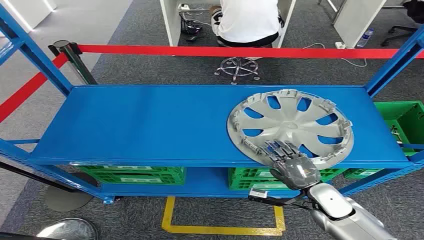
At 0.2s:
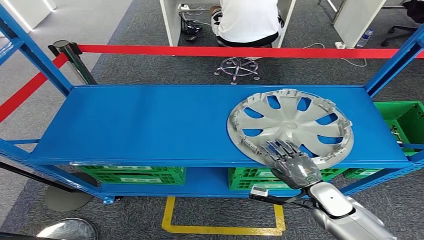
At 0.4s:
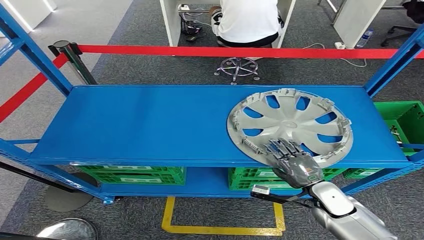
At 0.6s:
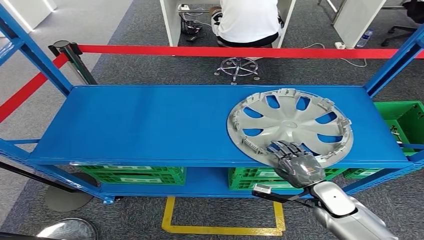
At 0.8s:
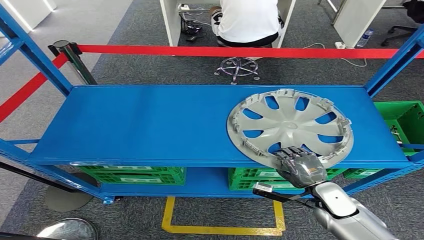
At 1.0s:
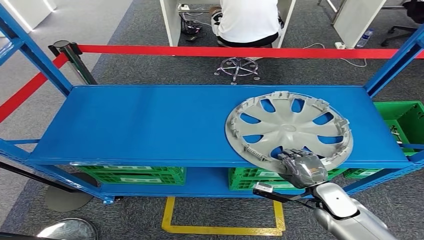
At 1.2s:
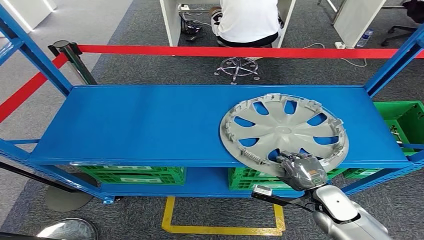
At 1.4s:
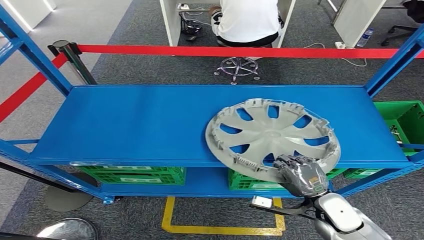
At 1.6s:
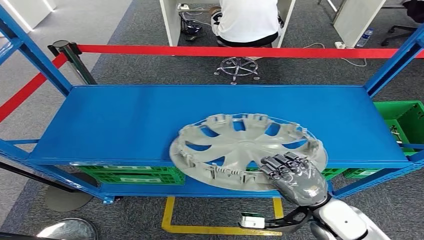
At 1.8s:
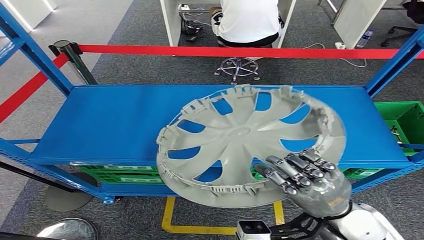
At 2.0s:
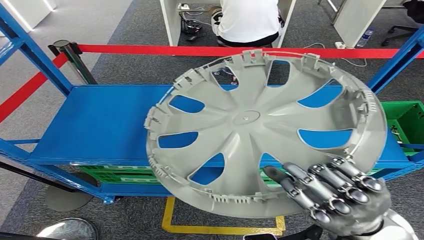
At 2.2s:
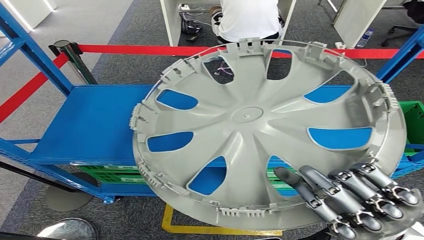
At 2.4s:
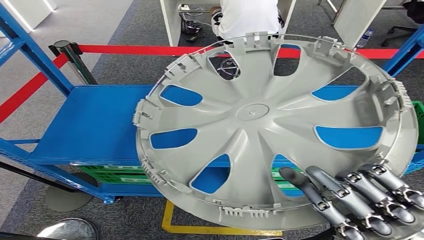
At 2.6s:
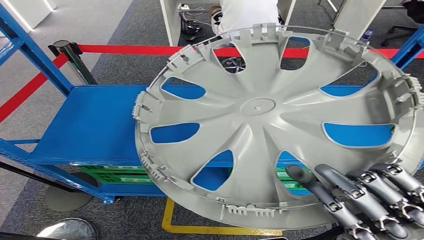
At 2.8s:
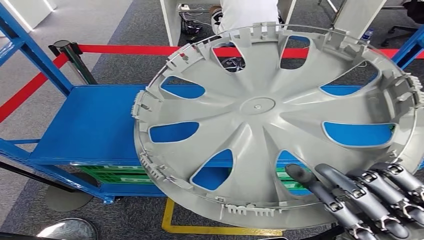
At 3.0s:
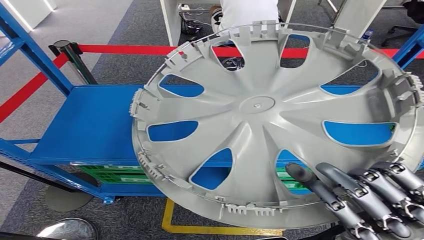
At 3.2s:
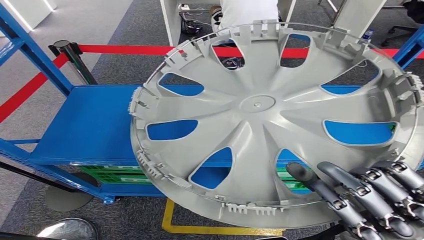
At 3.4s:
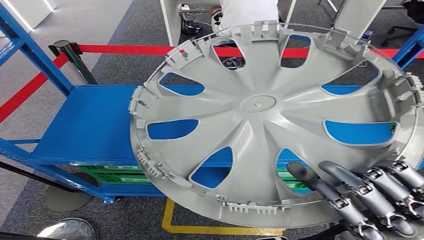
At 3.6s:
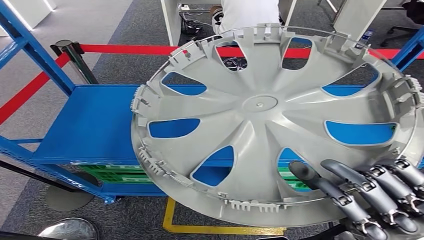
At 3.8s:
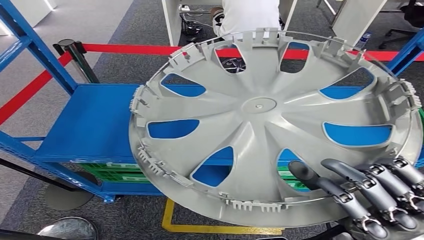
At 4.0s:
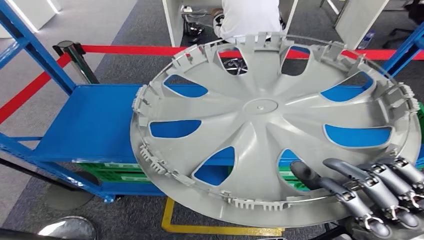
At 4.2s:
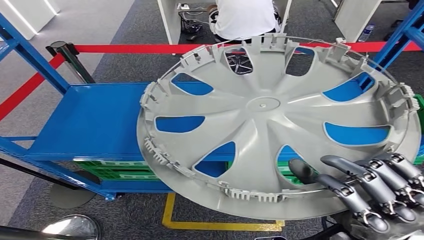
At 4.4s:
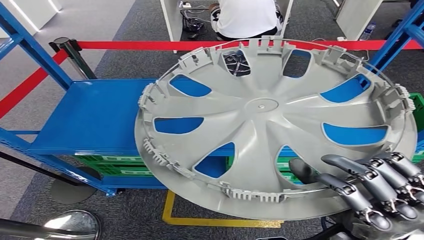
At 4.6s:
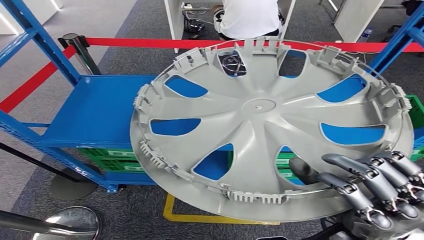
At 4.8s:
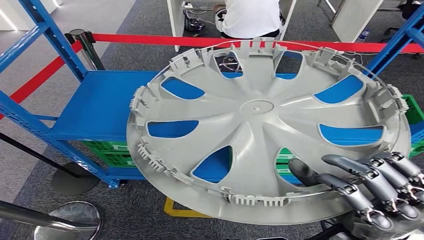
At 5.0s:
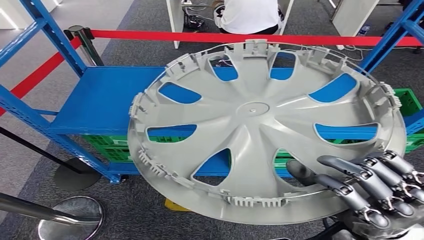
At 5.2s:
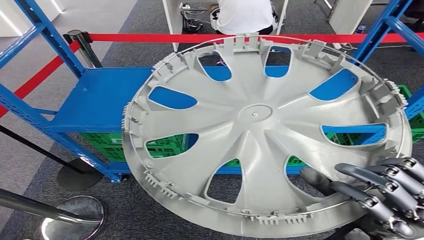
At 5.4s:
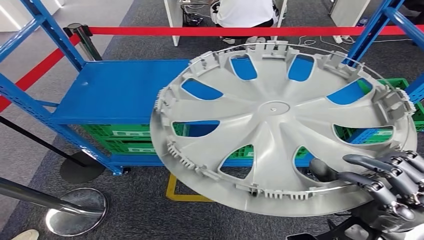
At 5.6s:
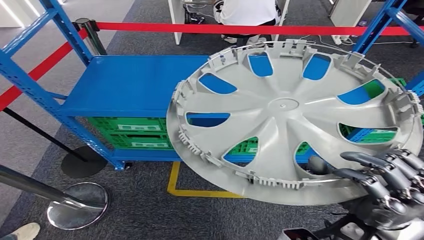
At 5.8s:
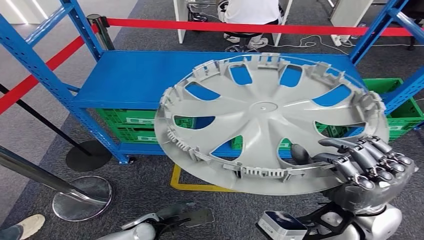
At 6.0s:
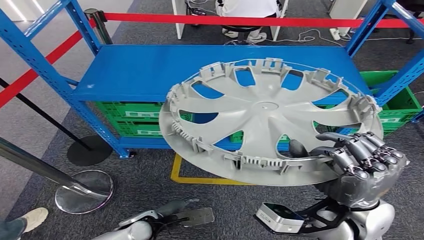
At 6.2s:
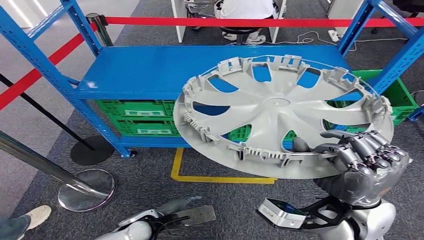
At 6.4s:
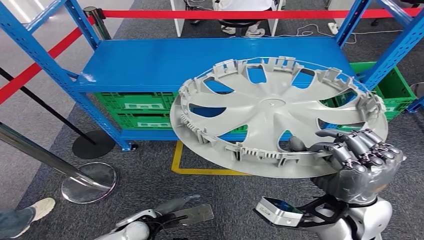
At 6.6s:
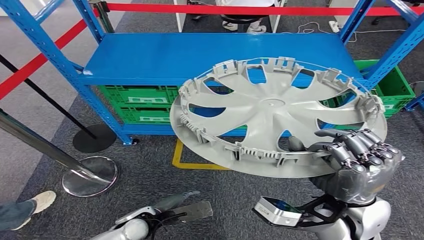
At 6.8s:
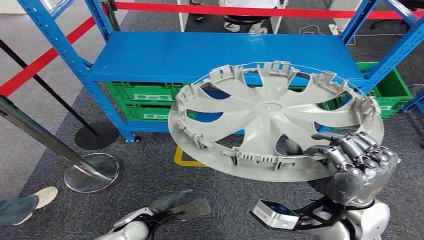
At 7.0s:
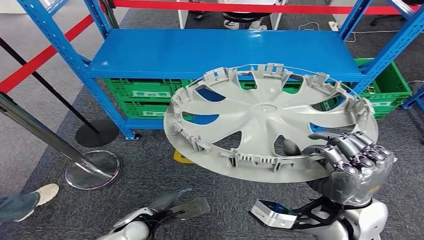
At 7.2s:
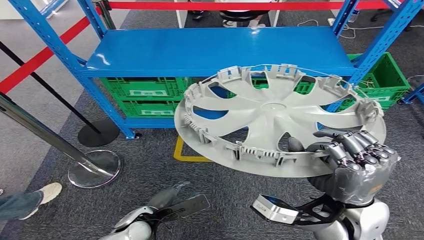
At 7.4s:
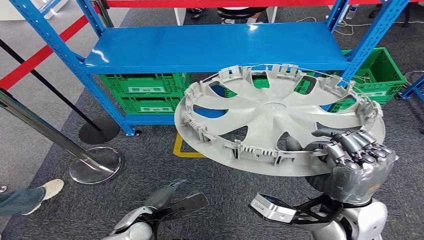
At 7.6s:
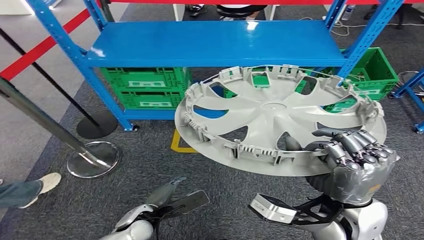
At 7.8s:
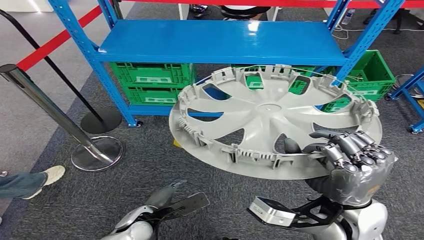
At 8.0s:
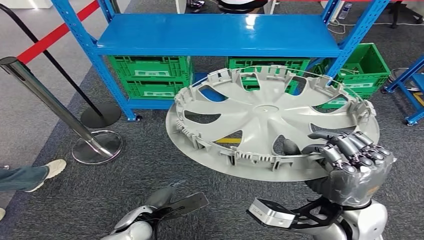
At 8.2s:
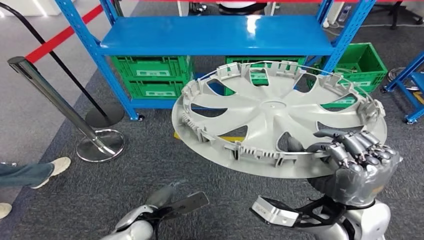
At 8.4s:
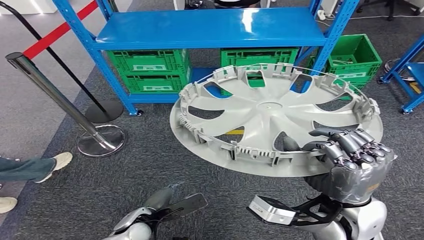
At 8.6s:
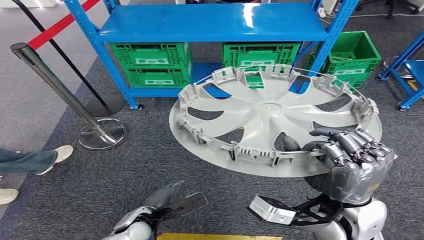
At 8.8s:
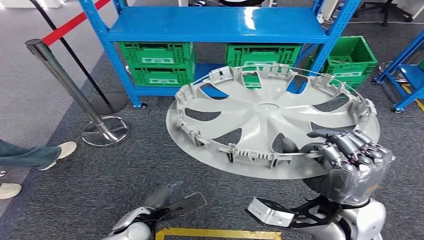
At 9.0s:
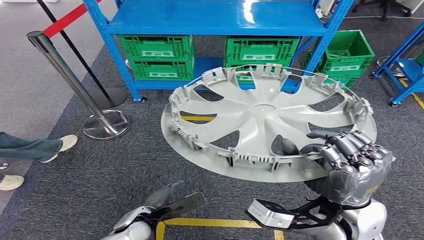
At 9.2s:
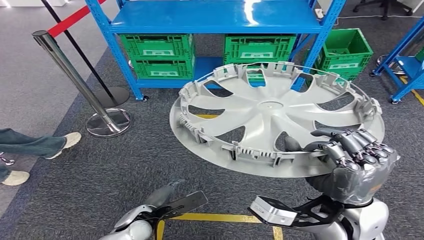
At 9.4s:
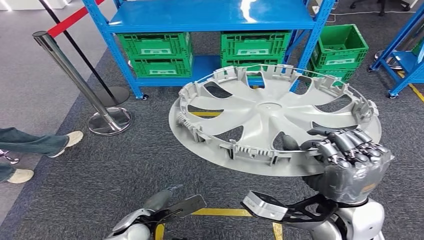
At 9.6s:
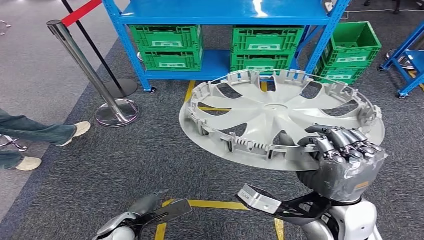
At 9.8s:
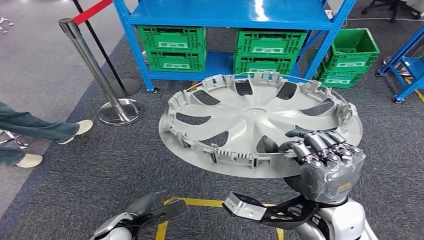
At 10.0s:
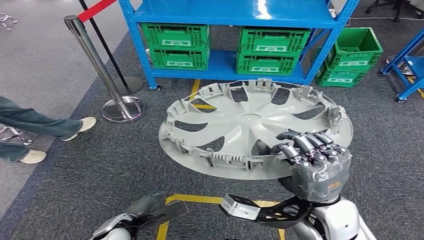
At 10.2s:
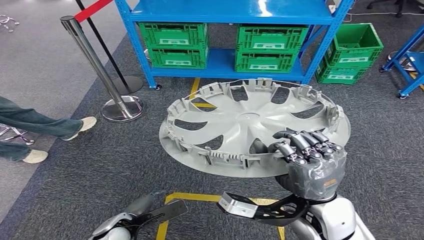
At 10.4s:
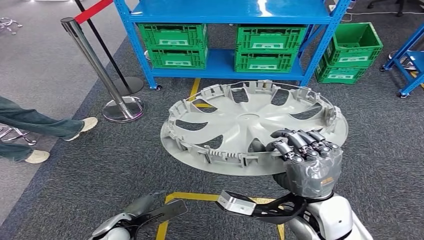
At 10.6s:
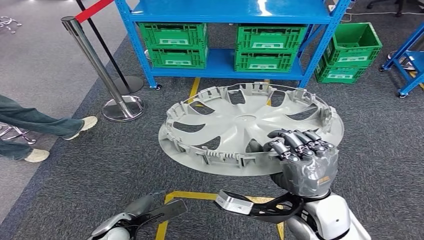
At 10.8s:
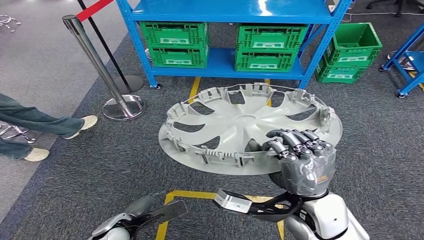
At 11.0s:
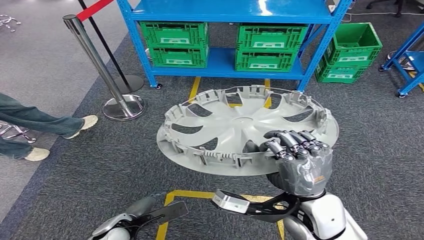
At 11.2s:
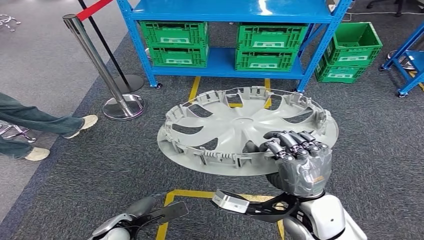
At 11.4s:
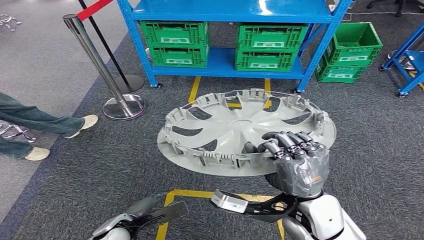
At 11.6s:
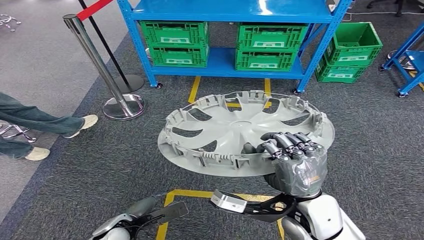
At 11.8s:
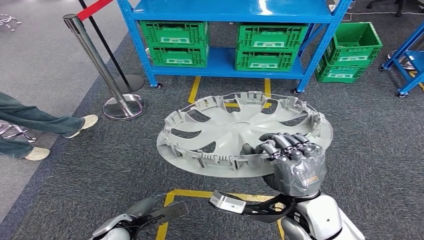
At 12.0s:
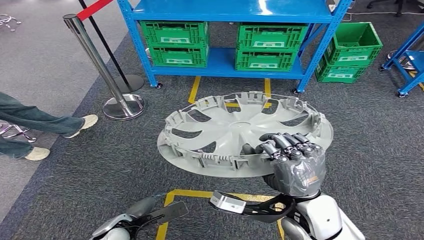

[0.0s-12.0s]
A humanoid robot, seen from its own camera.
Step, 0.0s to 4.0s: Pick up the small component from the shelf.

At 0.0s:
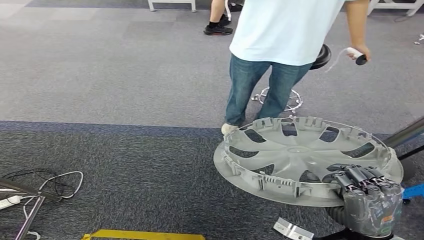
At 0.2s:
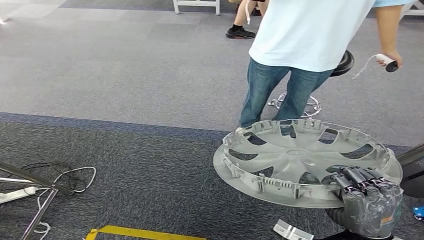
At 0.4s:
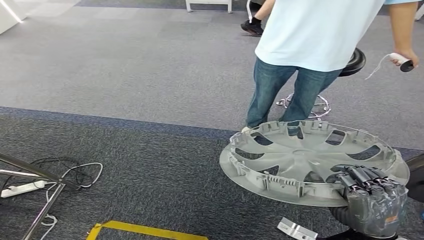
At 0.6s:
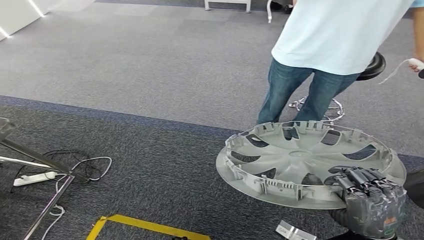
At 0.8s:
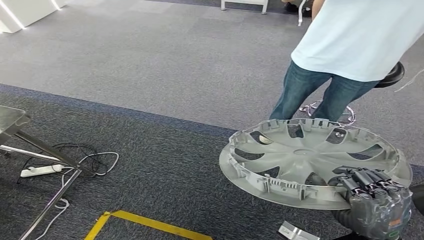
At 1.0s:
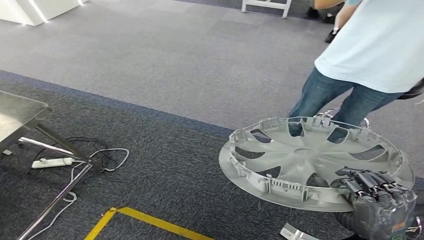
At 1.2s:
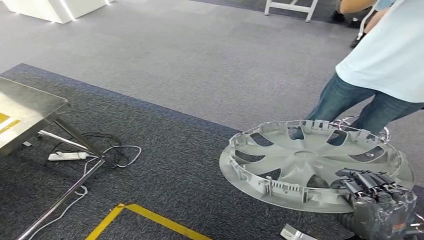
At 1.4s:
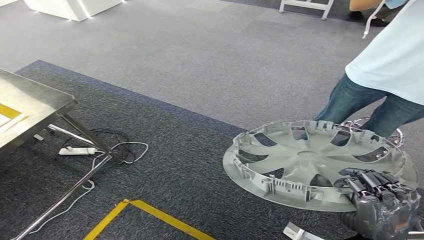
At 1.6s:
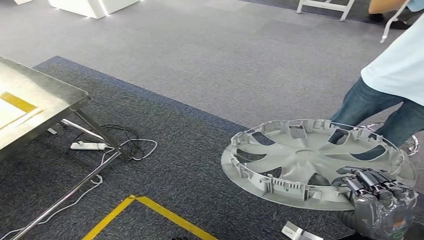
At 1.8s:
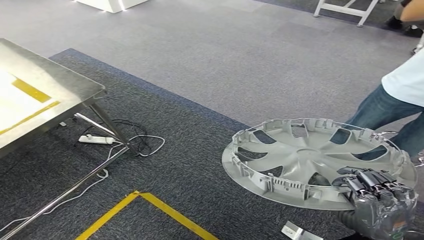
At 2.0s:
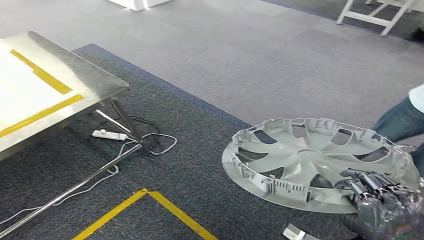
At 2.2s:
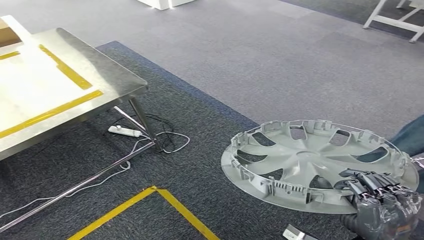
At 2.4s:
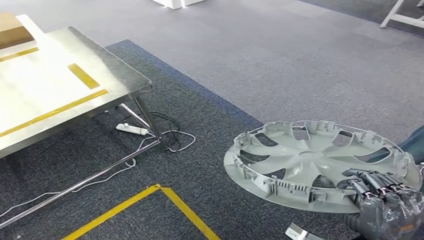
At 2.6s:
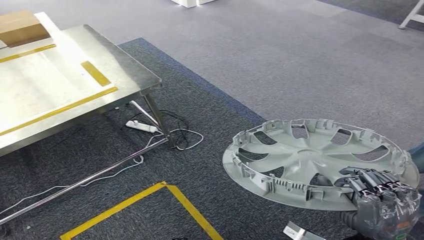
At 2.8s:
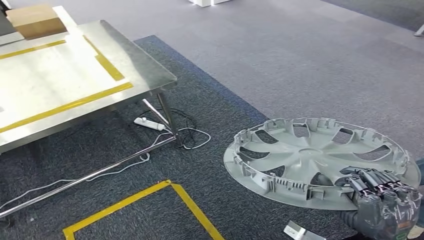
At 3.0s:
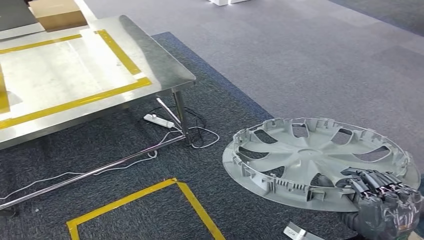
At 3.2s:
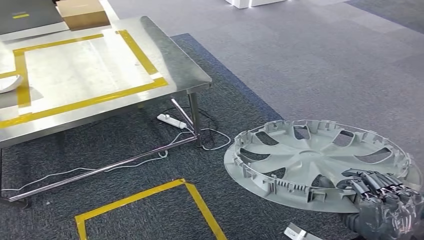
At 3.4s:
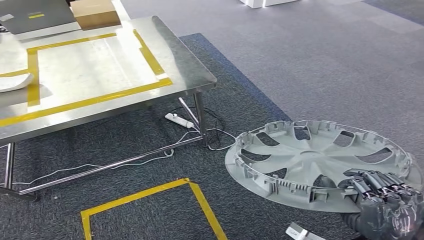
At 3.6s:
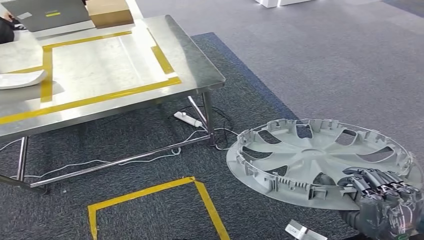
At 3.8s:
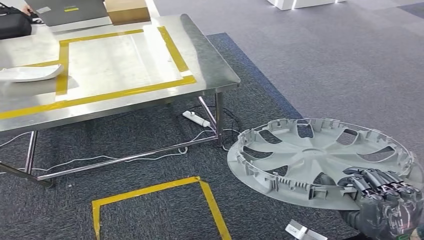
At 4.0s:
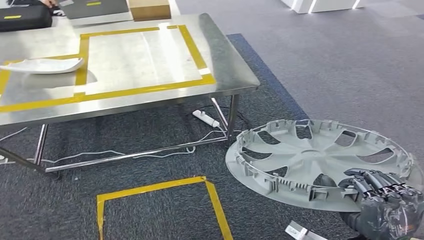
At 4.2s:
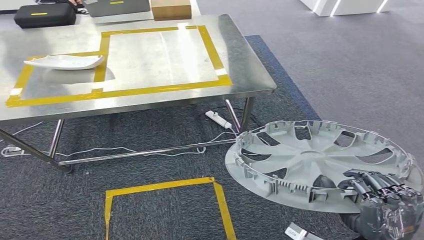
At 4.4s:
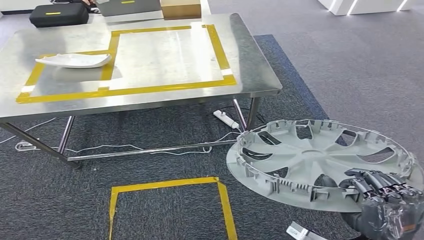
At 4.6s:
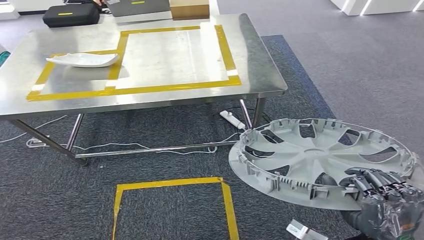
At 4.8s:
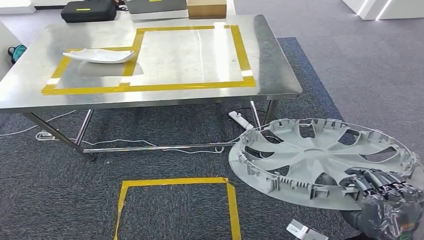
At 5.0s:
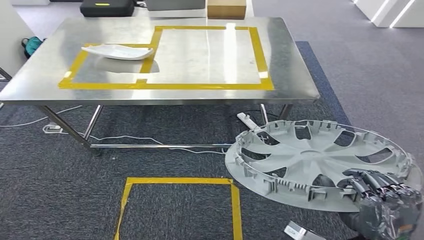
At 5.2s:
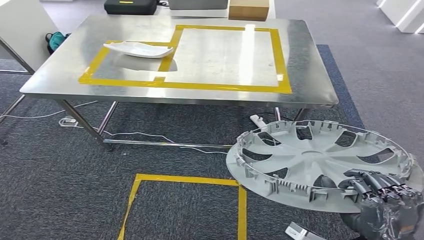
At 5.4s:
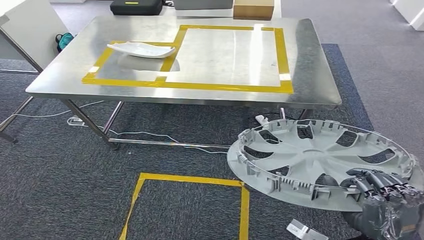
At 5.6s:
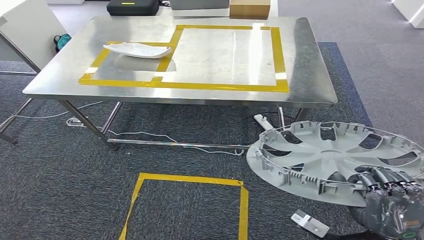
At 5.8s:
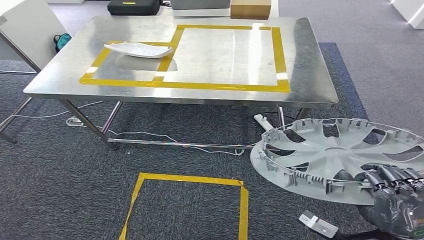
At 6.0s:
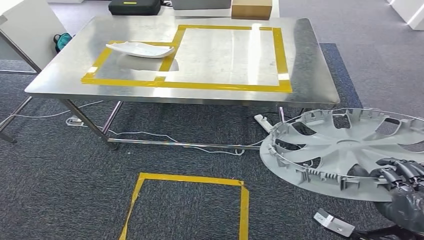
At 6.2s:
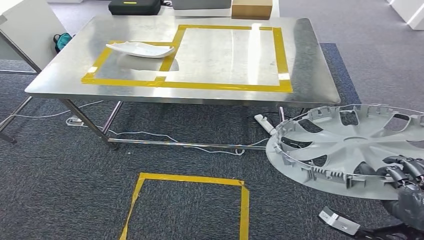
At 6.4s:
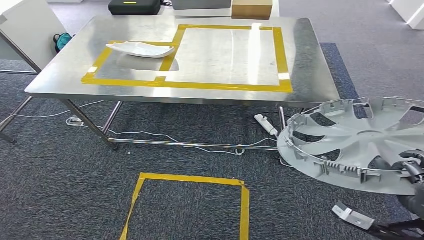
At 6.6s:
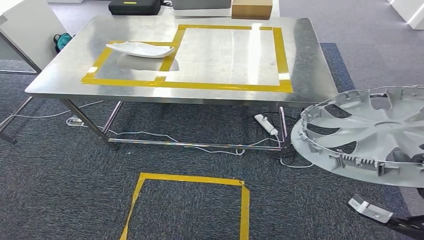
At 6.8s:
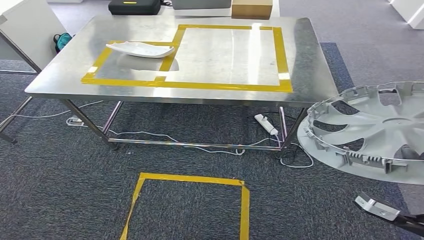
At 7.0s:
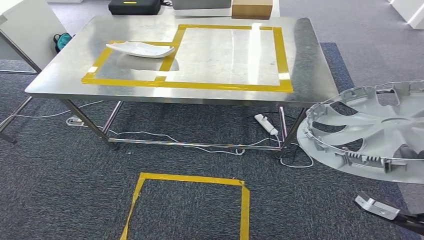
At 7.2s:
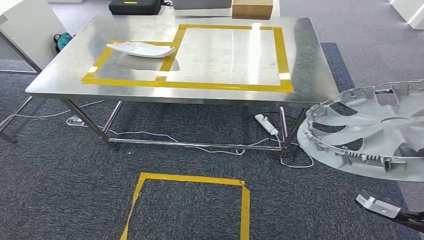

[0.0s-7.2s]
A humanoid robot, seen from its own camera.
5.8s to 7.2s: The right hand shifts approximately 10 cm to the right and upward.
